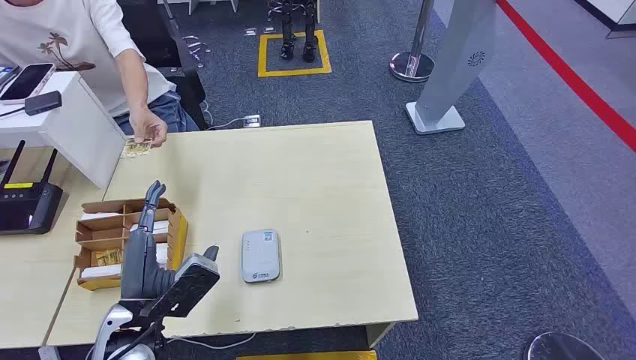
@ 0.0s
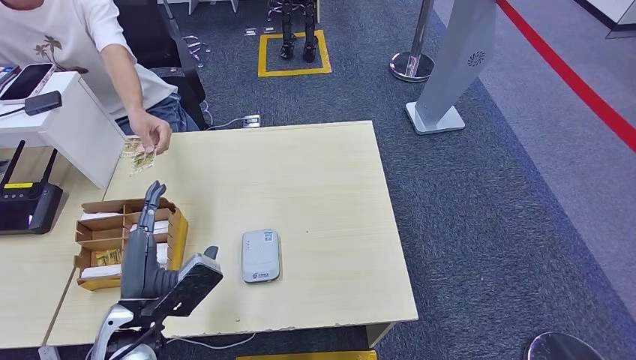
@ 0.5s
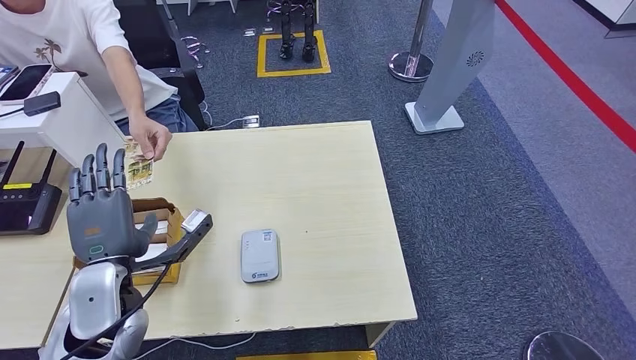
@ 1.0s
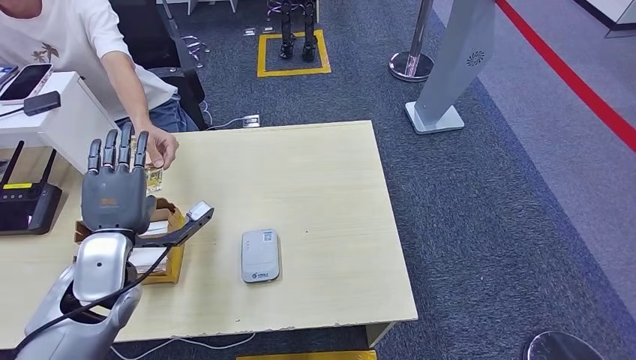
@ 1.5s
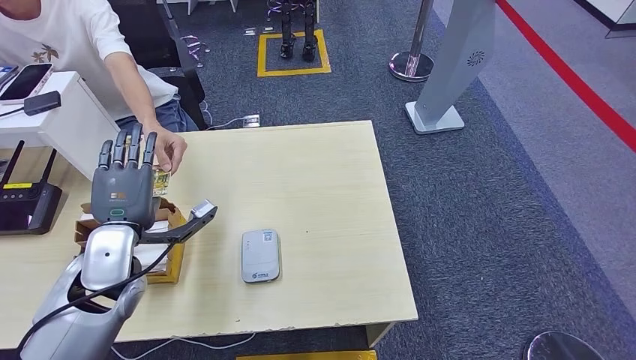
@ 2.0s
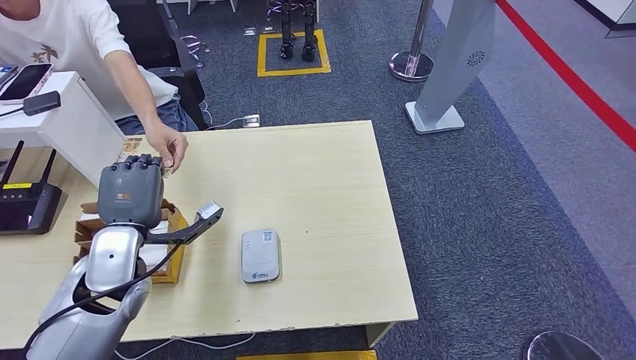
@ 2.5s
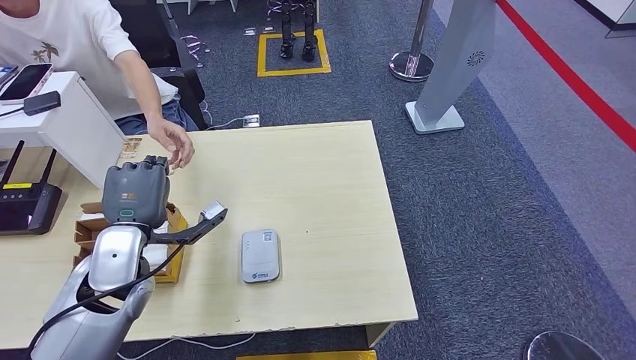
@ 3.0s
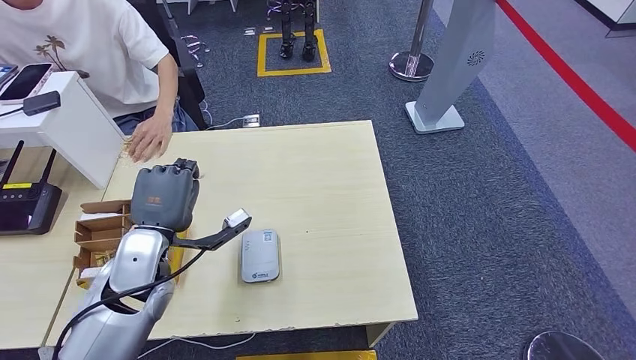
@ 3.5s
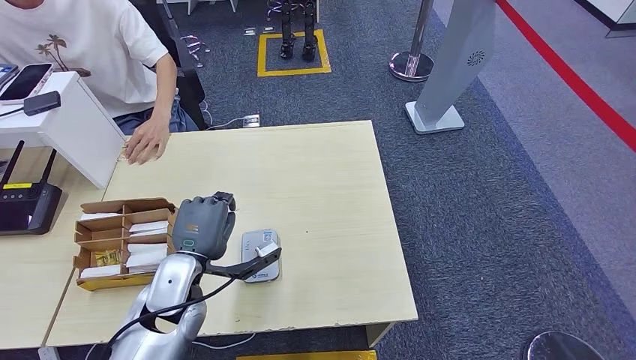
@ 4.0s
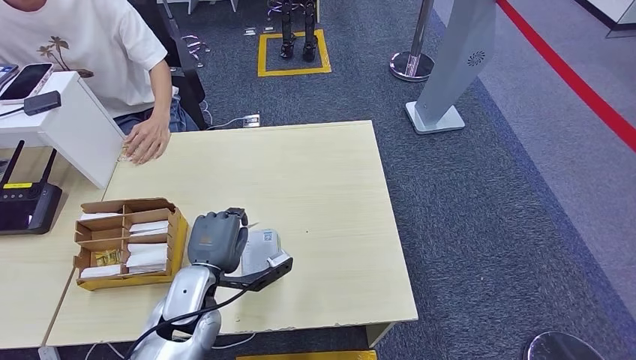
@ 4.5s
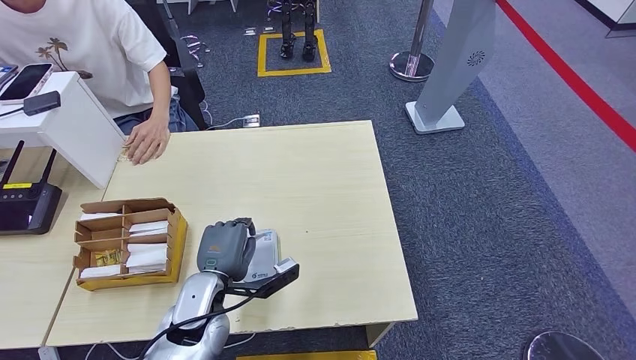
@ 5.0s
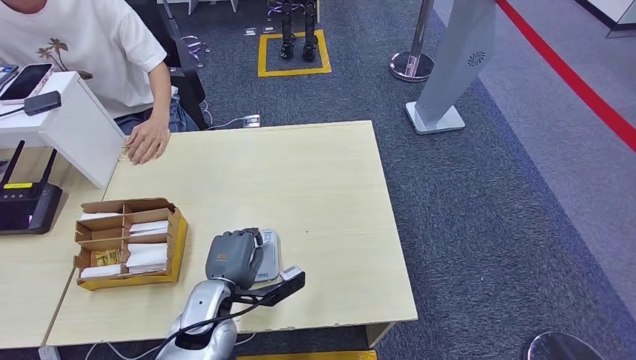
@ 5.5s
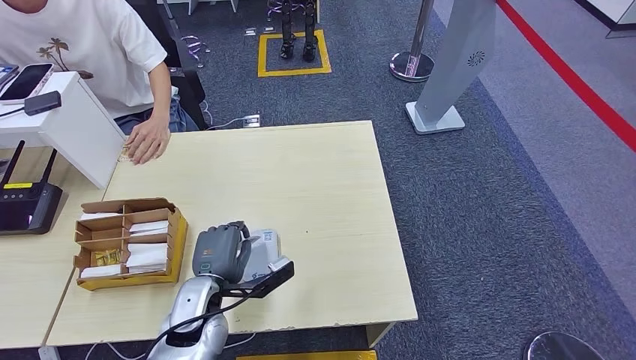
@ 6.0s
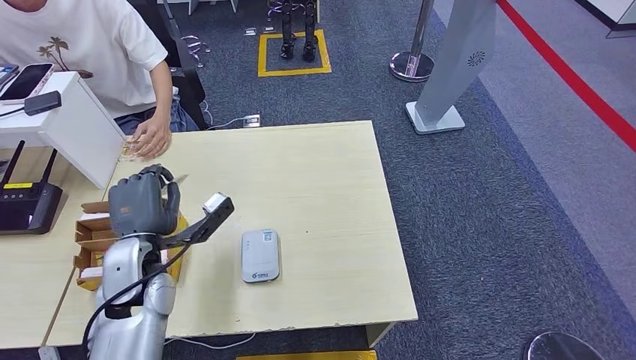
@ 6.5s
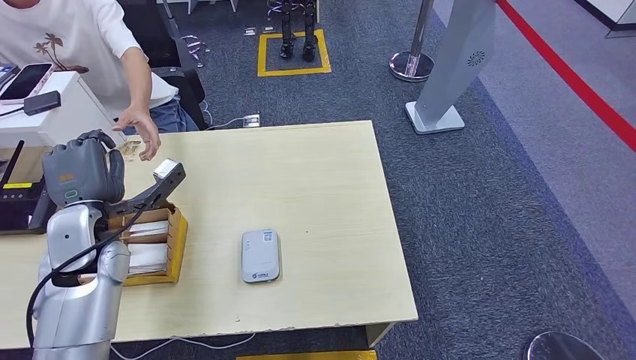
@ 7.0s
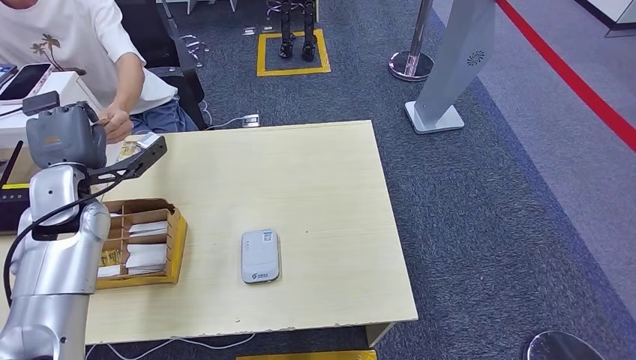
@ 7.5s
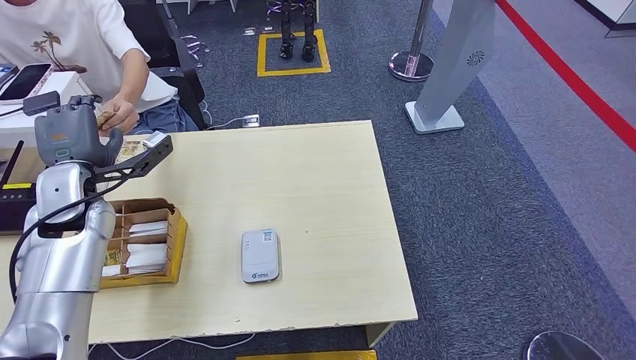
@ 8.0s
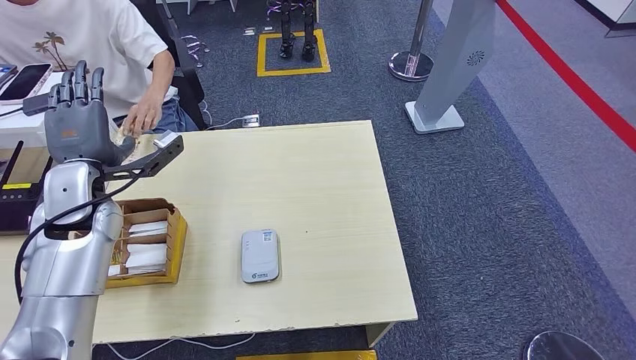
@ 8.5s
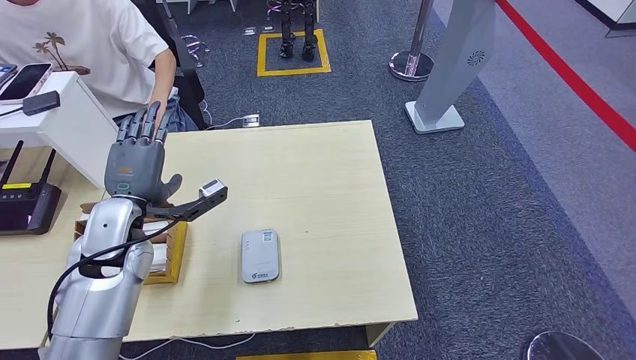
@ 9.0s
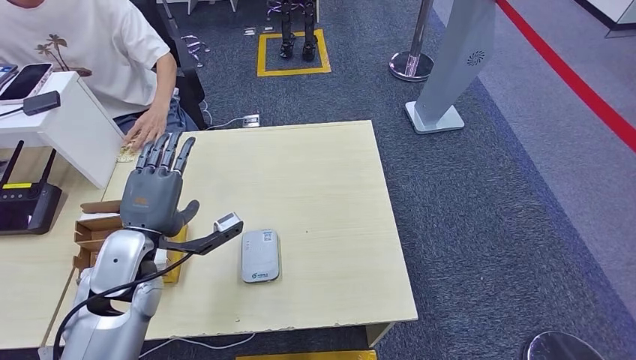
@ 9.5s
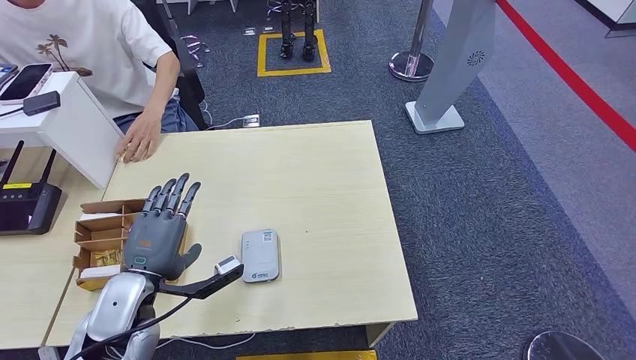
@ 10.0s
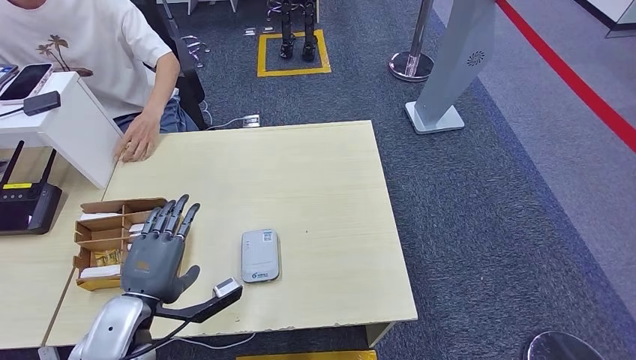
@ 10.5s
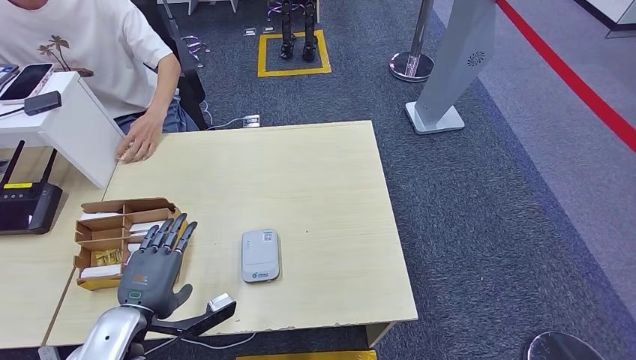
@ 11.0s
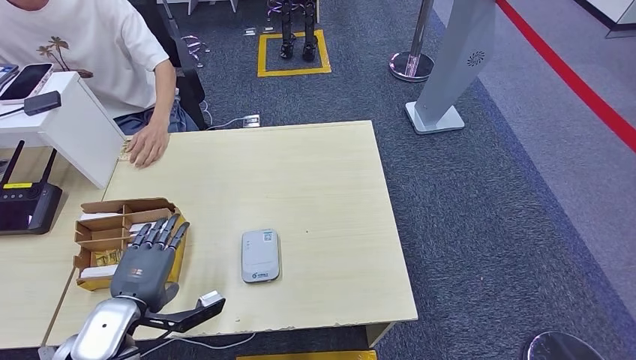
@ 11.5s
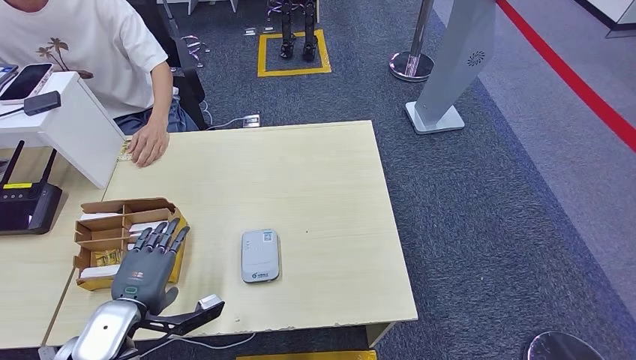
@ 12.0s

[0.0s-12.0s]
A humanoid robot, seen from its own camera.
Step, 0.0s to 2.5s: Take the ID card from the person's hand.
Step, 3.0s to 5.0s: Place the ID card on the card reader.
Step, 5.5s to 8.0s: Hand the ID card to the person.
2.0s to 4.0s: The left hand travels to the right and downward by approximately 10 cm.
4.0s to 6.0s: The left hand moves downward, about 5 cm.
6.0s to 8.0s: The left hand goes about 25 cm to the left, upward and forward.
8.0s to 10.0s: The left hand moves backward, downward and to the right, some 20 cm.
10.0s to 12.0s: The left hand shifts by some 5 cm.

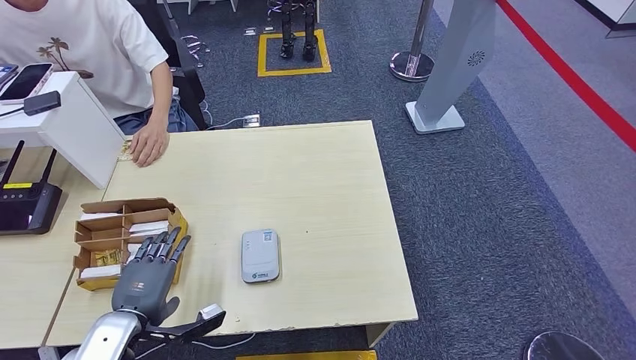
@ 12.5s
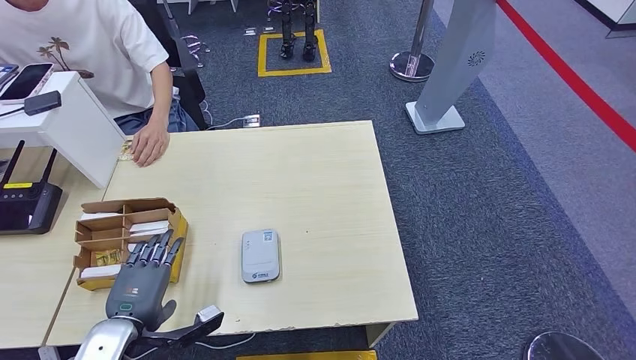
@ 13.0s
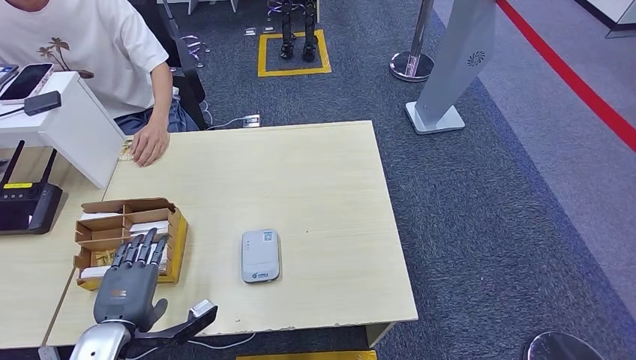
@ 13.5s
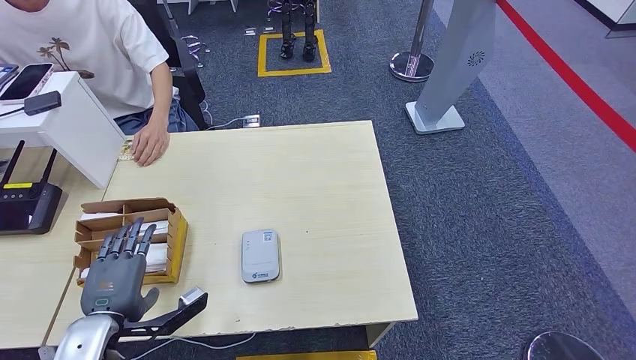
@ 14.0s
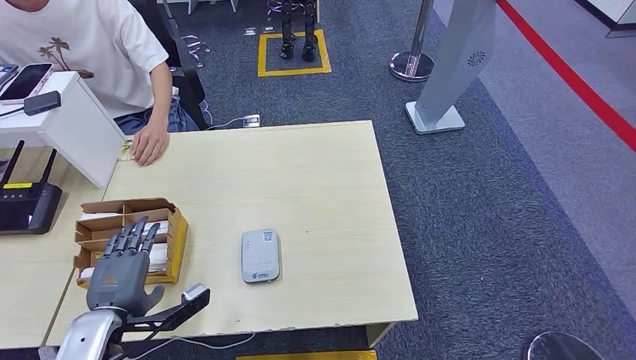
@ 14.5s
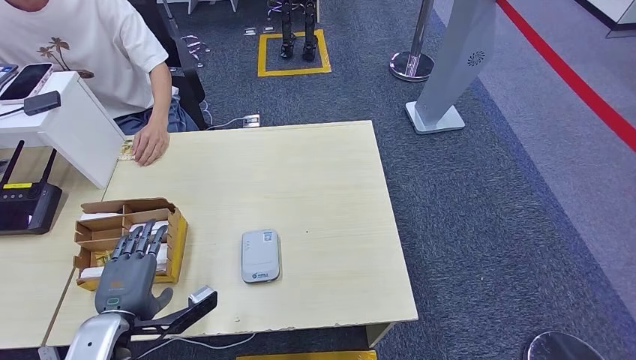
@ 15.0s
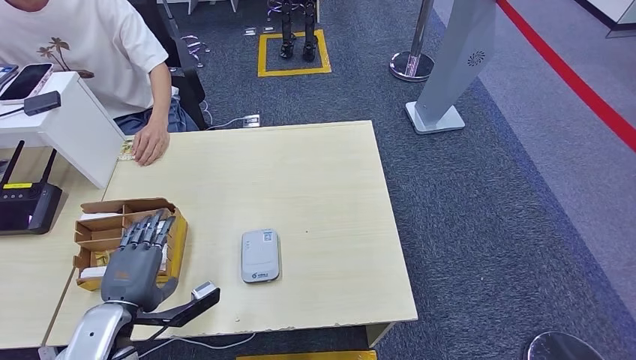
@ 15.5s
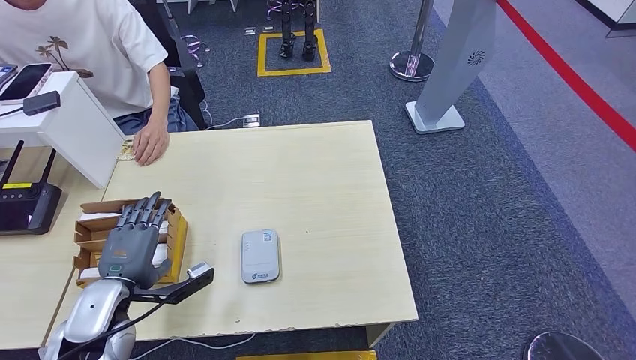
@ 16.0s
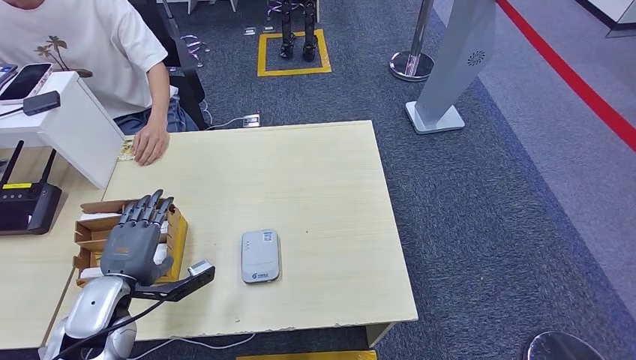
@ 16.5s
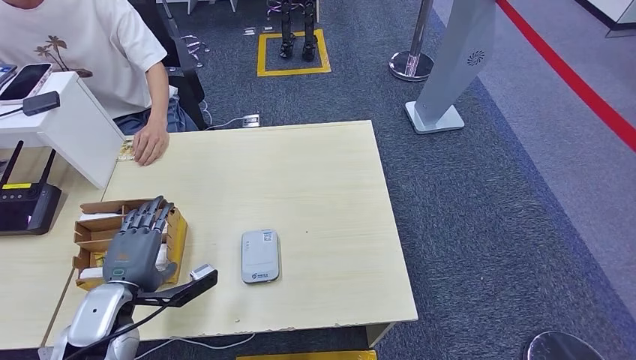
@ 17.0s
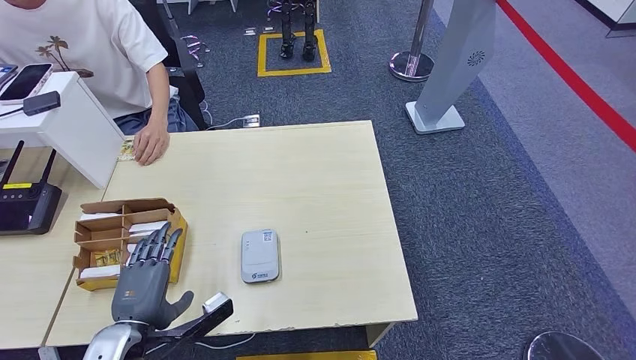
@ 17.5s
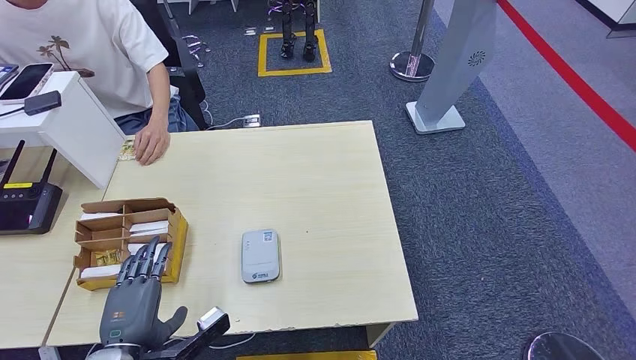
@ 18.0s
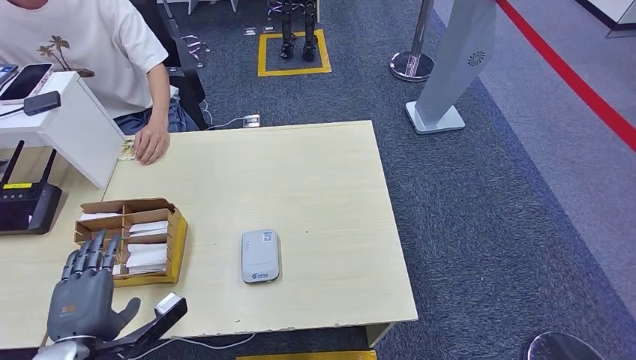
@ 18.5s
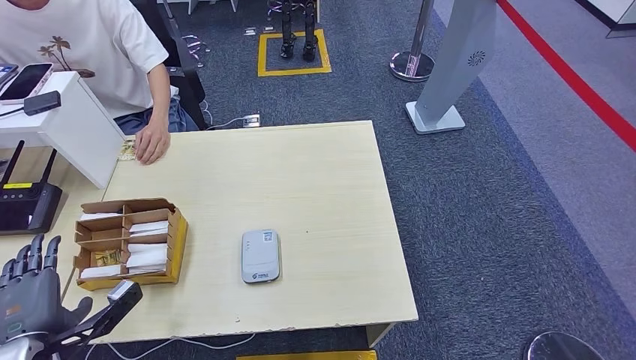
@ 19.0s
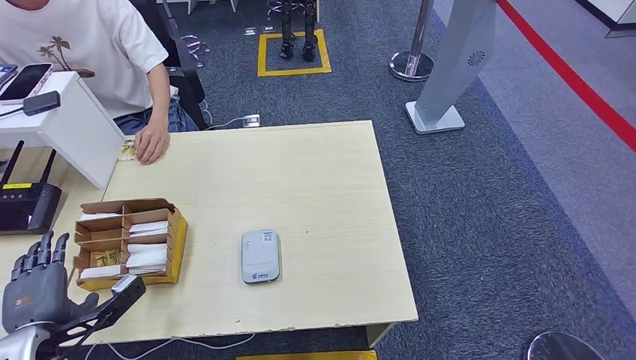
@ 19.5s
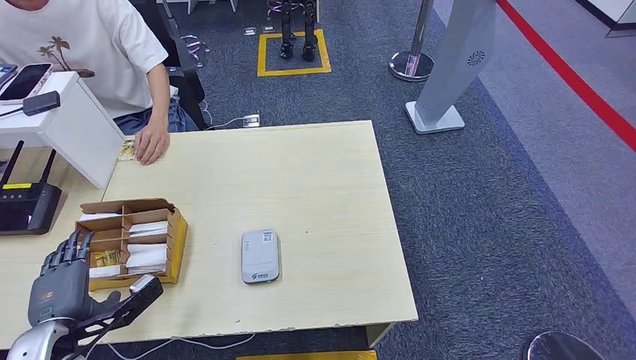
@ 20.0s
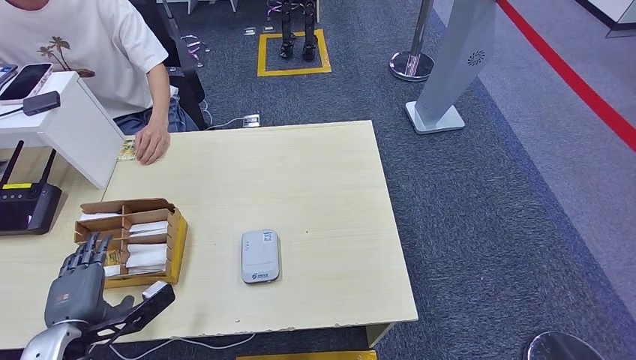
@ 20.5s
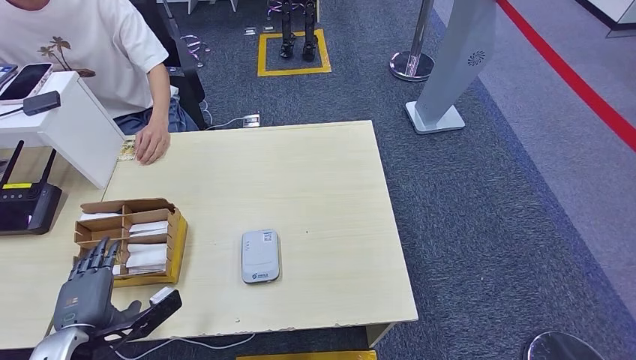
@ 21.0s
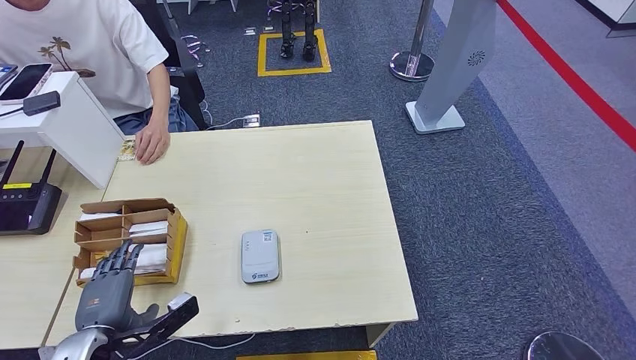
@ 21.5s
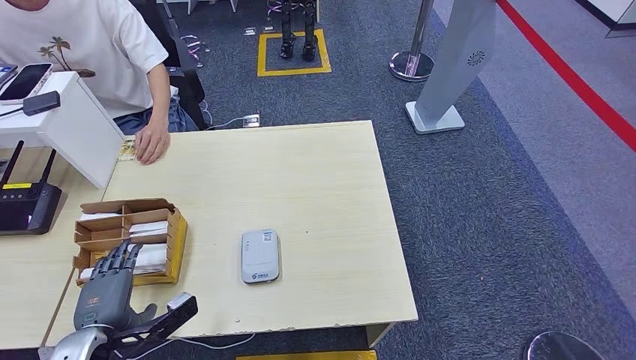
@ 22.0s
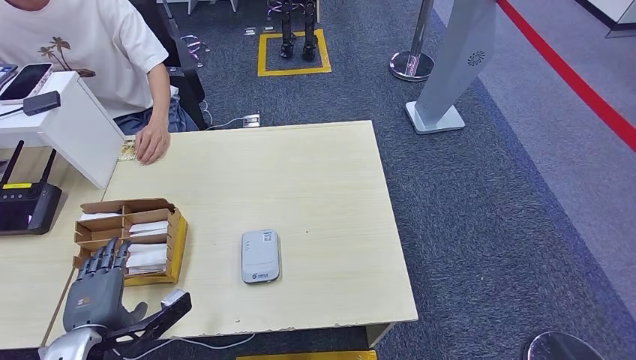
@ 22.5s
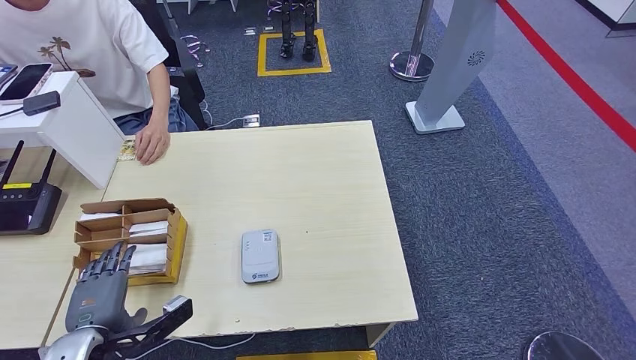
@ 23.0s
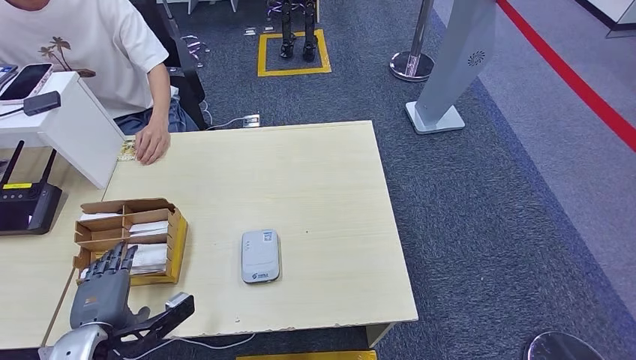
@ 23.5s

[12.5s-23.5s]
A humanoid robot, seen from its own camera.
12.5s to 14.5s: The hands make only small movements.
14.5s to 16.0s: The left hand moves roughly 5 cm.
16.0s to 18.0s: The left hand heads backward, covering about 10 cm.
18.0s to 20.0s: The left hand heads to the left, covering approximately 10 cm.
20.0s to 21.5s: The left hand changes place by about 5 cm.
21.5s to 23.5s: The hands make only small movements.
